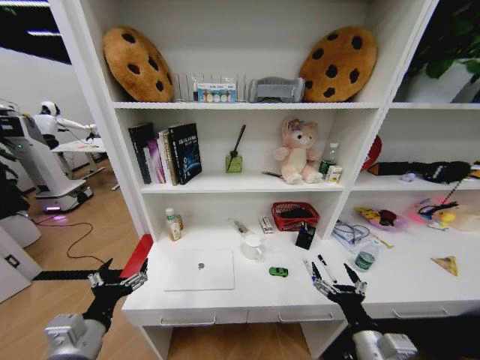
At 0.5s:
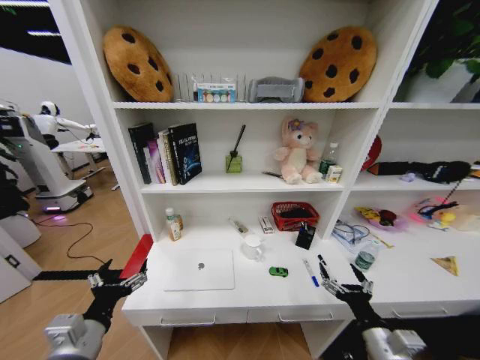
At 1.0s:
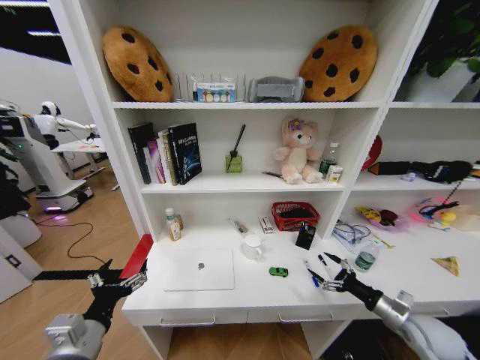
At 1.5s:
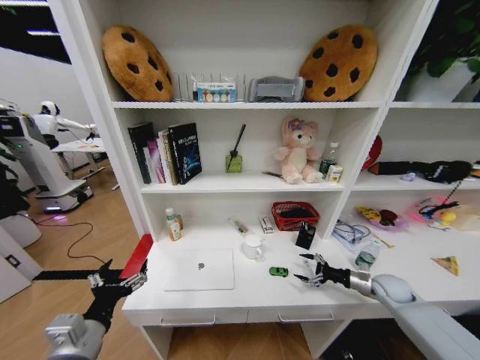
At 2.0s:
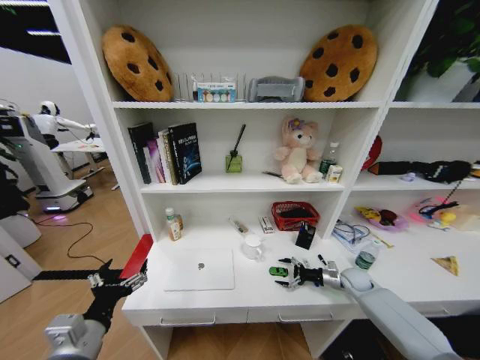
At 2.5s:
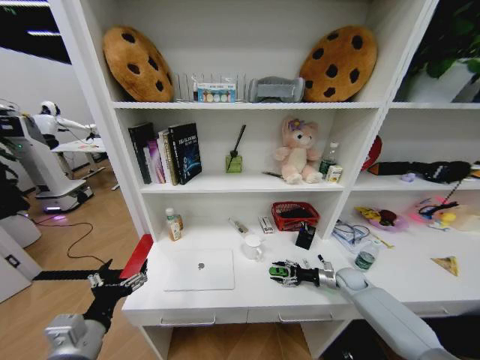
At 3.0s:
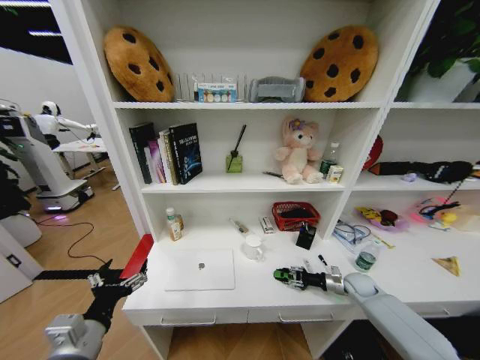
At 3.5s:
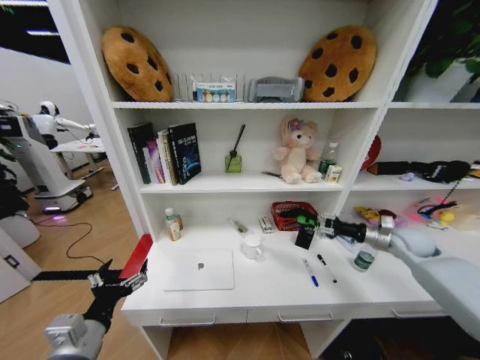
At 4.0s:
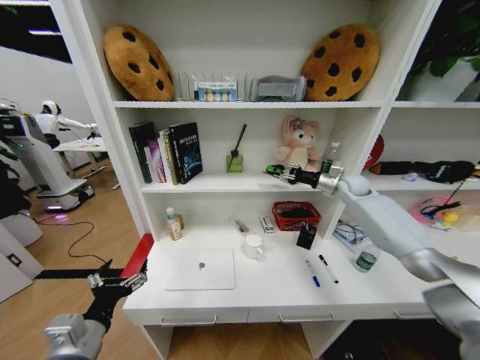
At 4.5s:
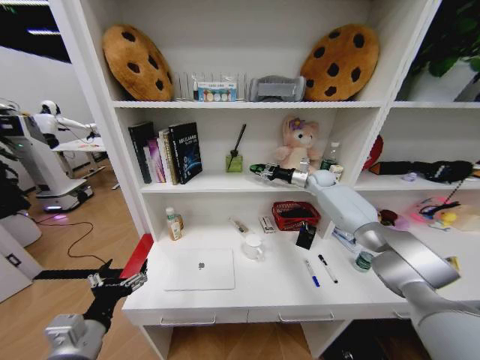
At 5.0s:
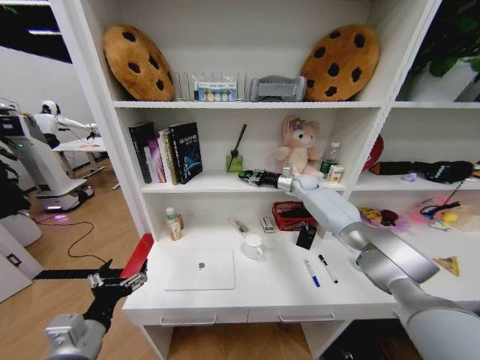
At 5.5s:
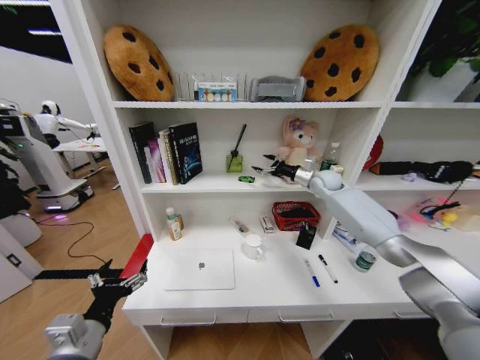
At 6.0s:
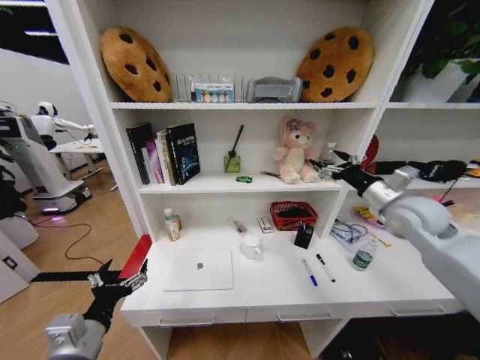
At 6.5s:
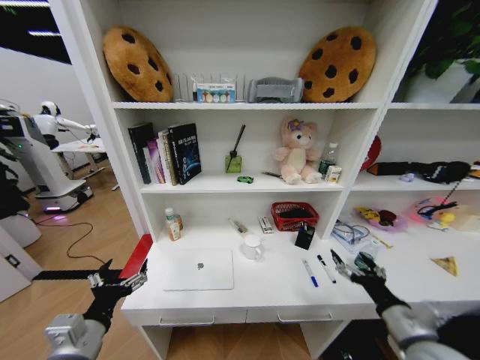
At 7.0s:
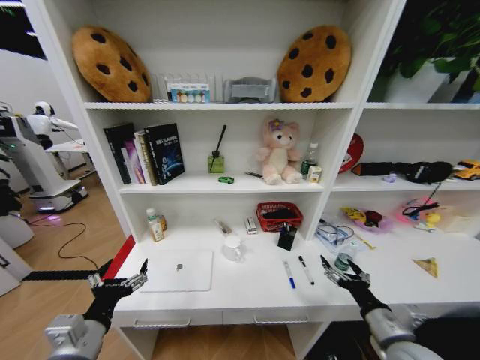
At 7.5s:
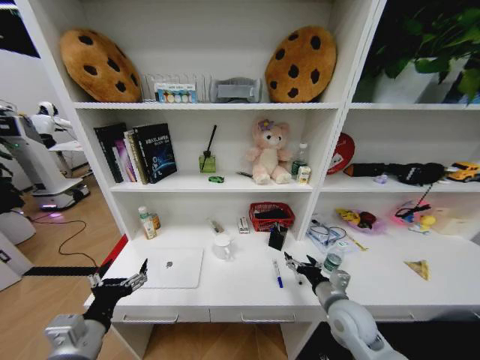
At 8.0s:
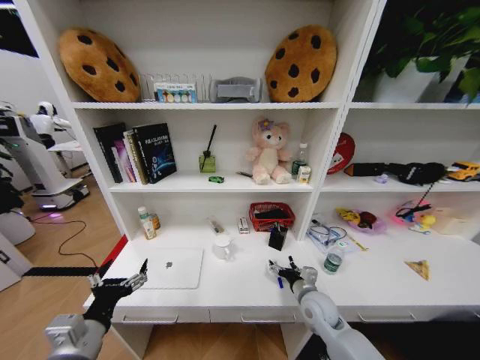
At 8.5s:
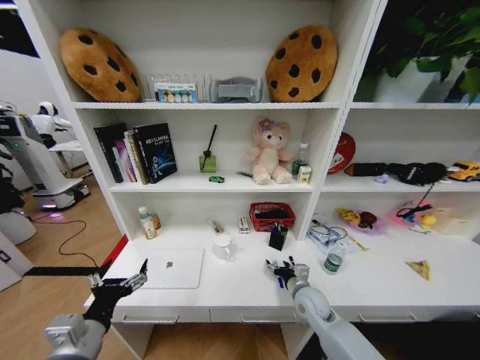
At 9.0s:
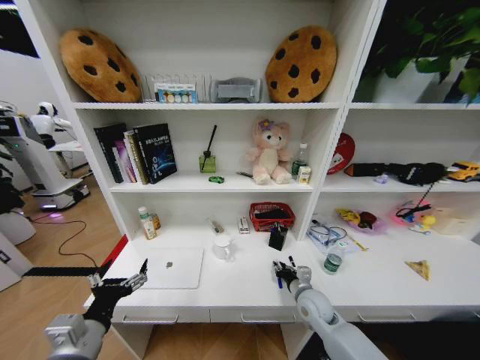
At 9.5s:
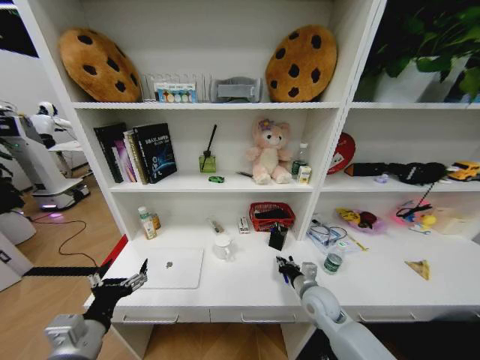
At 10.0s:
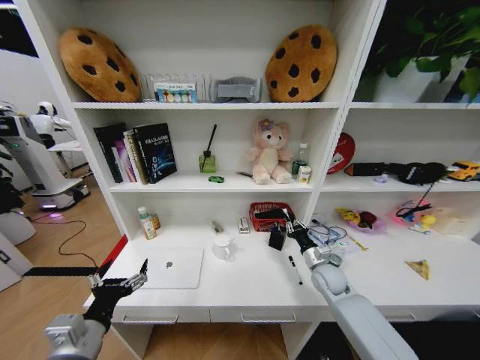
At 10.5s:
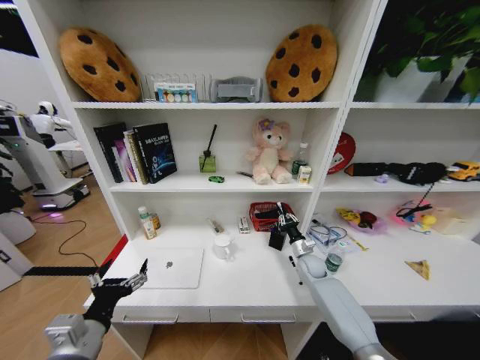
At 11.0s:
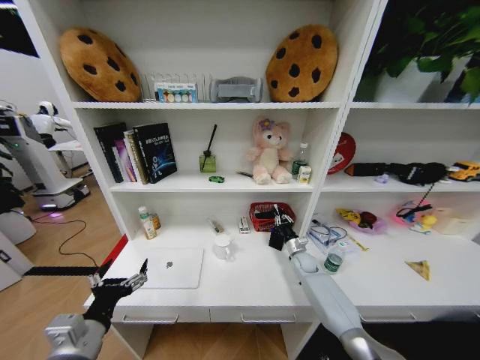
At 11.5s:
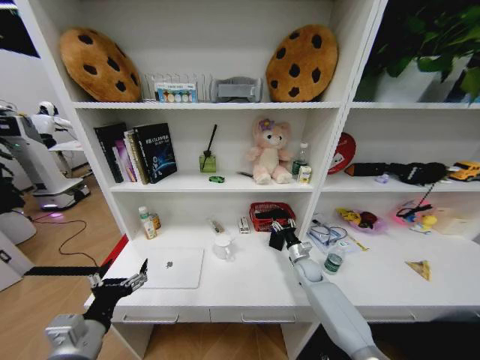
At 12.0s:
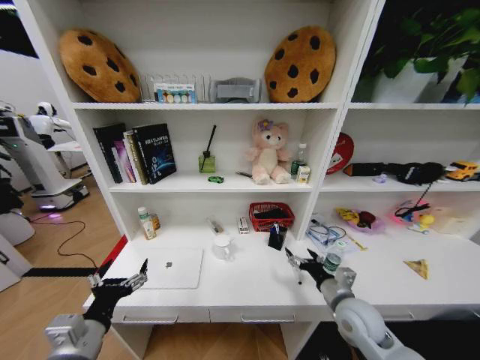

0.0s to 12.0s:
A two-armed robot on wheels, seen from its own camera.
Task of the whole recording: Organize the objects on the table.
0.0s to 2.0s: The right gripper moves forward, to the right and downward, approximately 35 cm.
2.0s to 4.0s: The right gripper heads upward and forward, covering about 35 cm, and closes up.
4.0s to 6.0s: The right gripper moves backward, some 20 cm, and opens.
6.0s to 8.0s: The right gripper shifts roughly 35 cm downward and to the left.
8.0s to 10.0s: The right gripper moves forward and to the right, roughly 10 cm, and closes.
10.0s to 12.0s: The right gripper moves backward, some 10 cm, and opens.

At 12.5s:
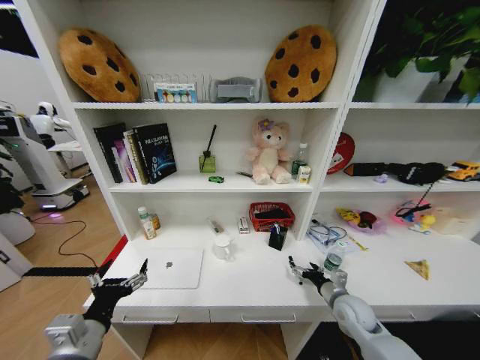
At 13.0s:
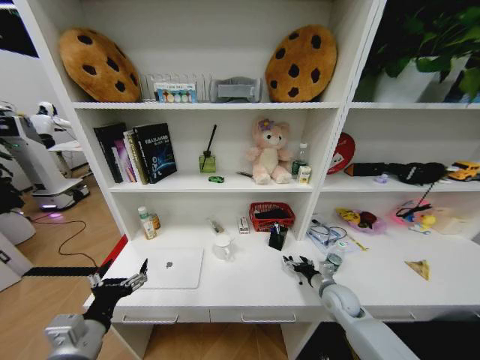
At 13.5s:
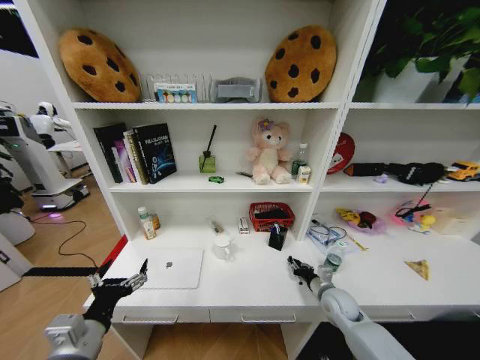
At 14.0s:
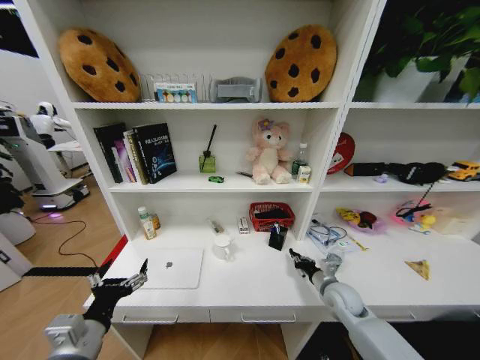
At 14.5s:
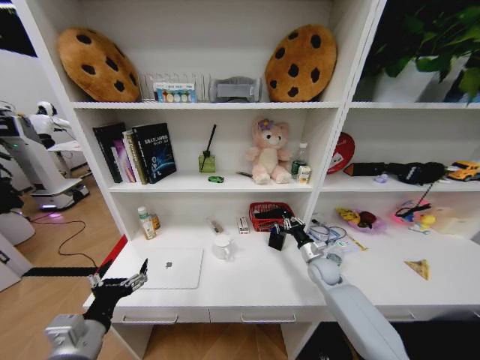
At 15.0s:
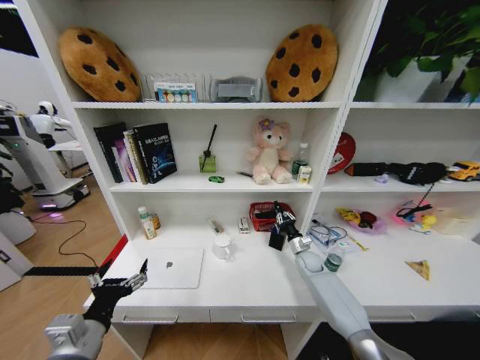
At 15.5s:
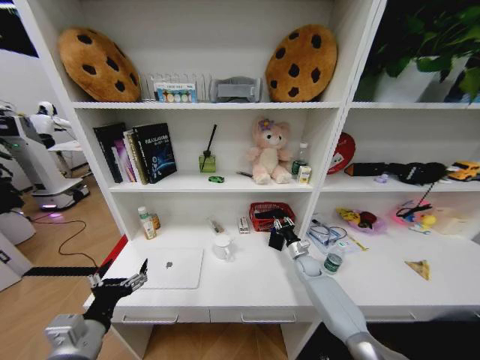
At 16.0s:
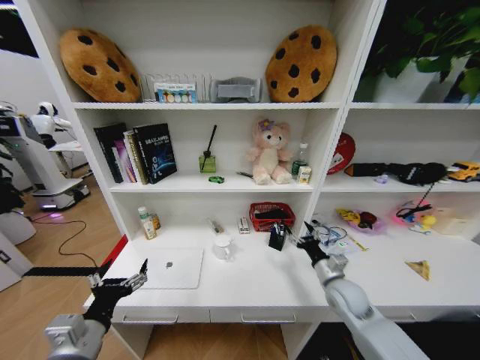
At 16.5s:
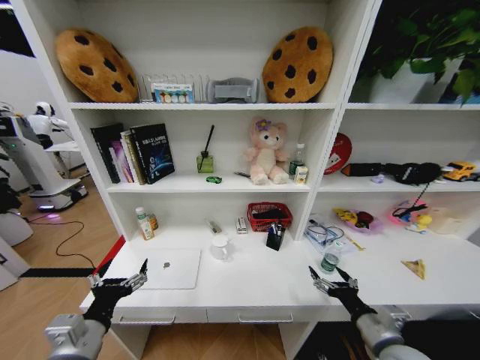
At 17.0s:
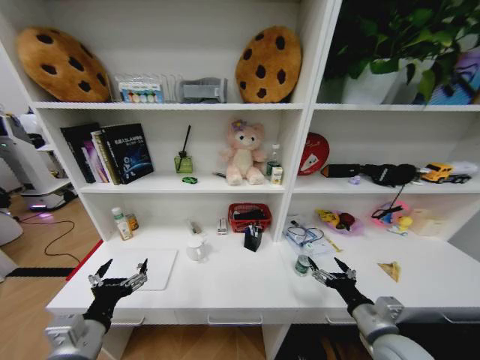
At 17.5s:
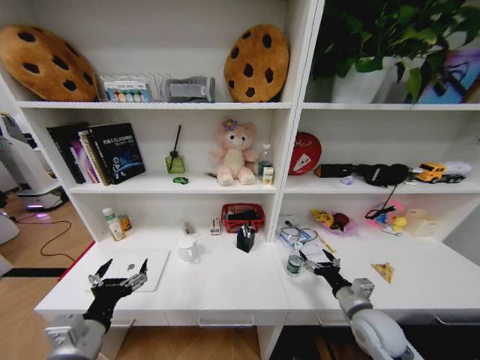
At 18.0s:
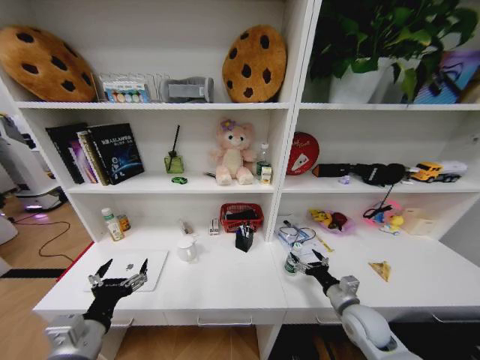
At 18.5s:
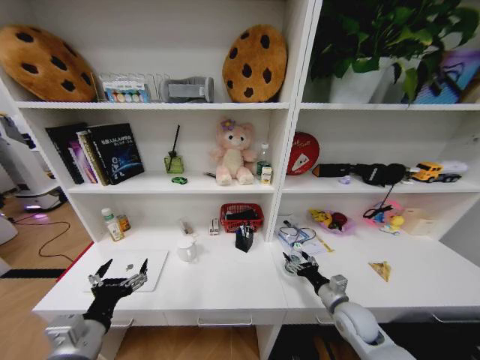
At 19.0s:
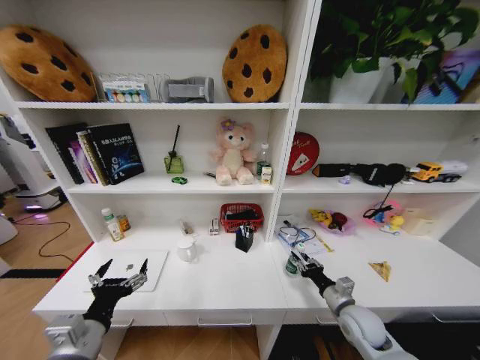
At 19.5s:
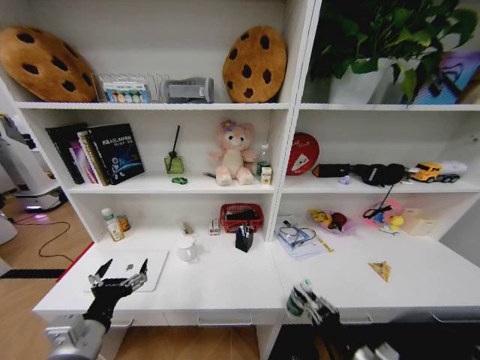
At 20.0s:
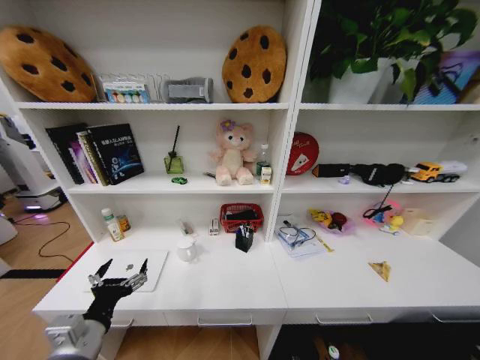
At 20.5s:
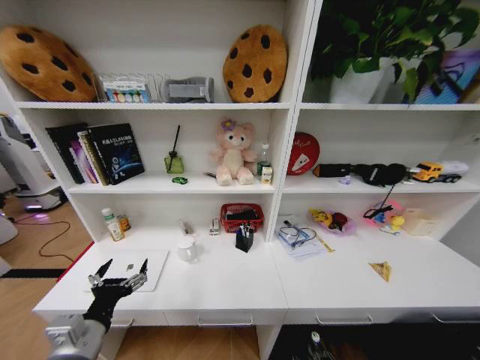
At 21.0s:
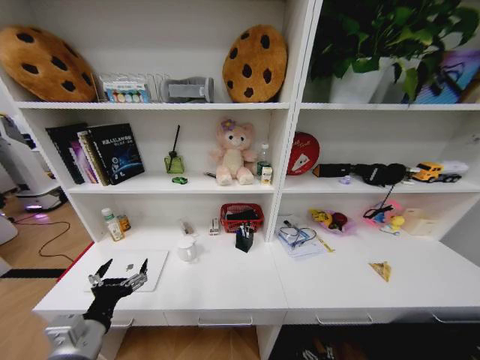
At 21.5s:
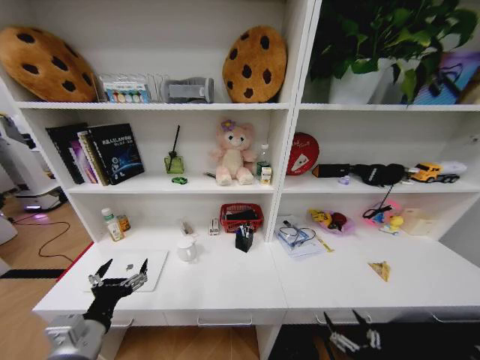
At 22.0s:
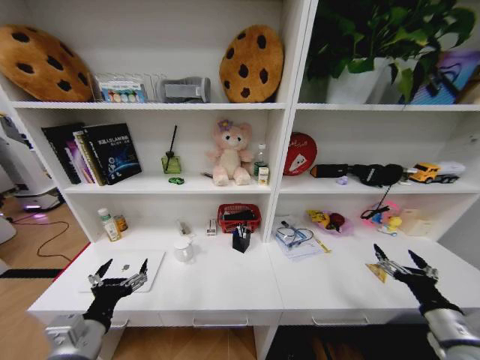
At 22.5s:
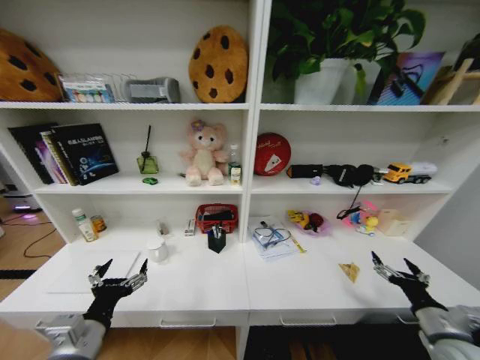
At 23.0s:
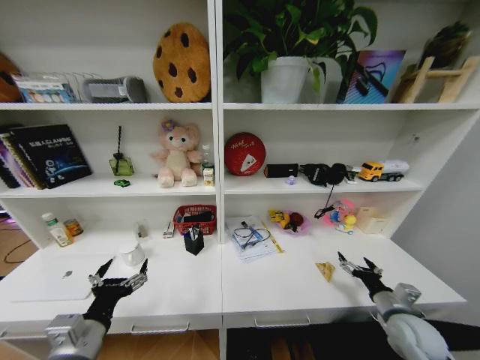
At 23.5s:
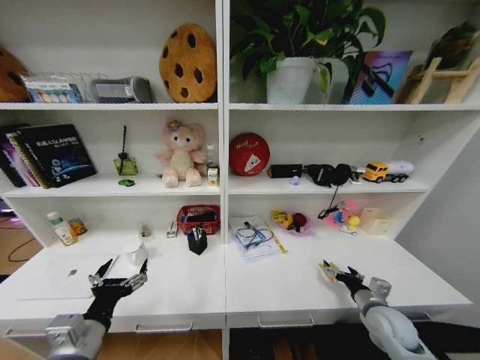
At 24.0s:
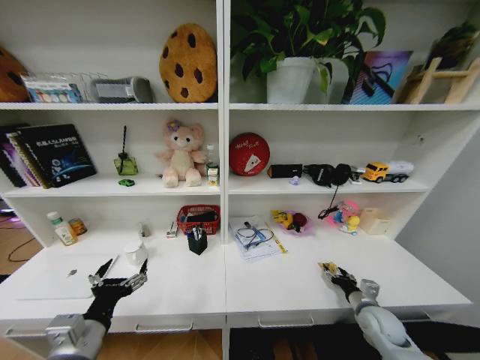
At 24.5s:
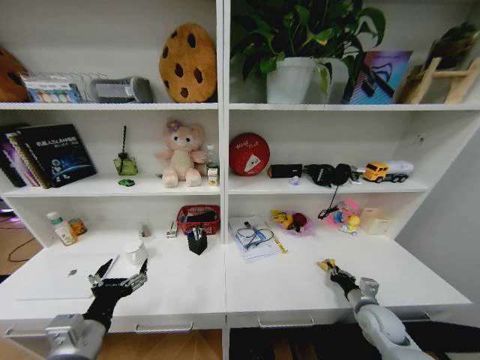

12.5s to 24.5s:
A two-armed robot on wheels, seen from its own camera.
Task of the whole recording: Organize the objects on the table.
12.5s to 14.5s: The right gripper moves forward, about 10 cm, and closes up.
14.5s to 16.5s: The right gripper moves backward, roughly 25 cm, and opens its fingers.
16.5s to 18.5s: The right gripper goes about 15 cm forward and downward.
18.5s to 20.5s: The right gripper heads downward and backward, covering approximately 35 cm, and closes.
20.5s to 22.5s: The right gripper shifts approximately 35 cm upward, and opens.
22.5s to 24.5s: The right gripper is displaced forward, downward and to the left by roughly 15 cm, and closes.

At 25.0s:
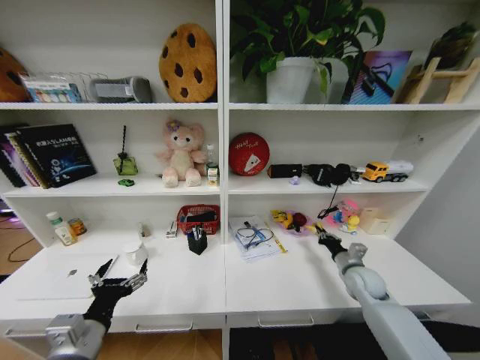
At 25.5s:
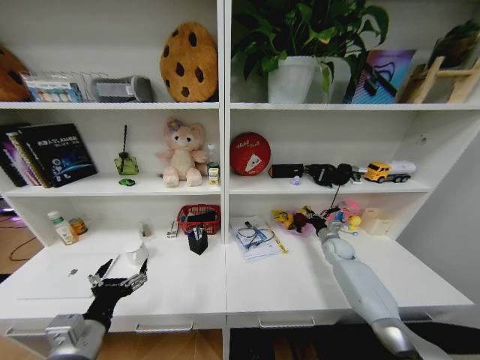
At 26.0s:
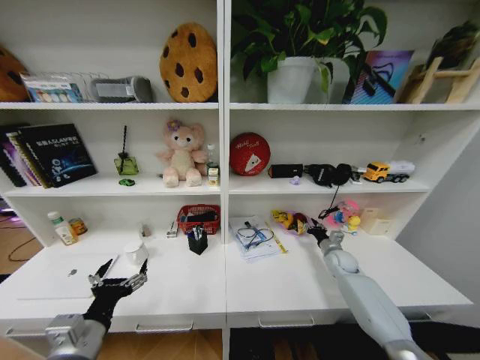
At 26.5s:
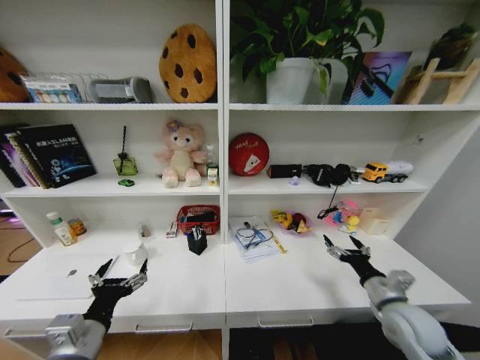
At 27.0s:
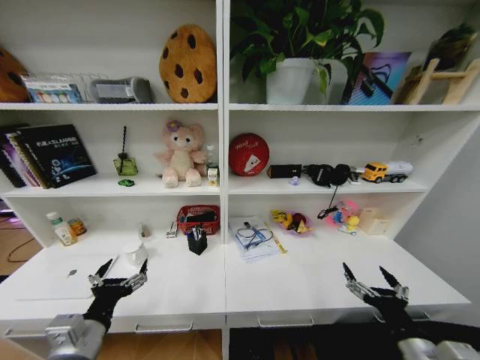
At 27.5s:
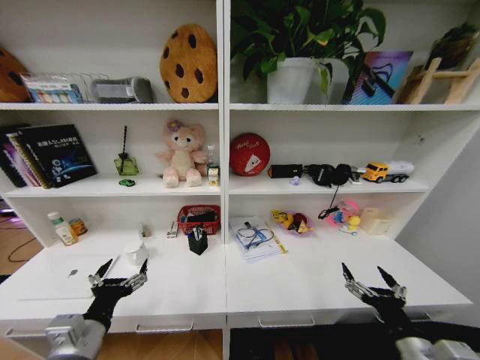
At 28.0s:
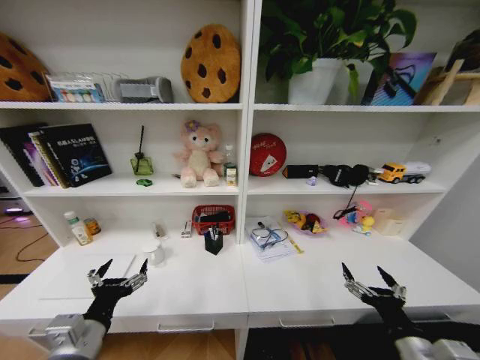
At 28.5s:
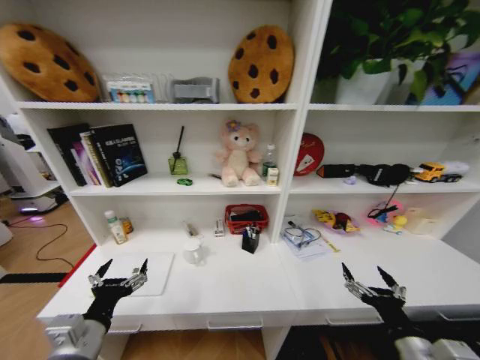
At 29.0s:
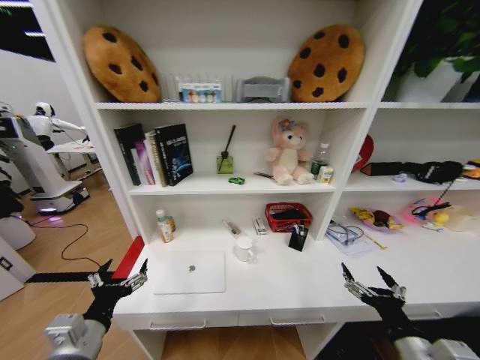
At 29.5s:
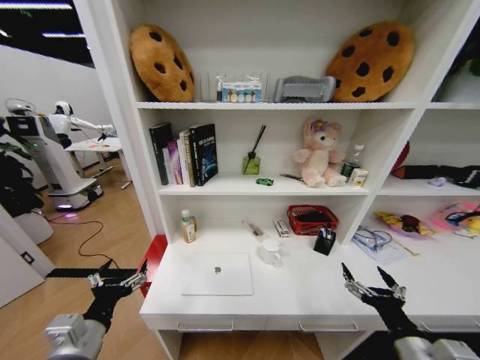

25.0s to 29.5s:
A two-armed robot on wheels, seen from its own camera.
Task of the whole recording: Organize the objects on the table.
25.0s to 27.0s: The right gripper goes roughly 25 cm backward, and opens its fingers.
